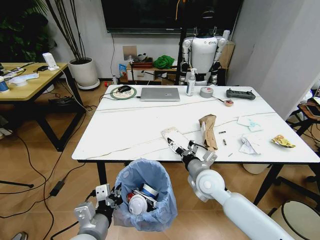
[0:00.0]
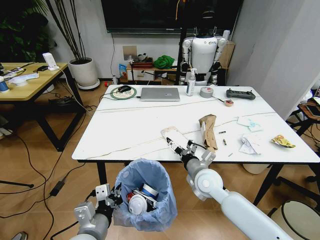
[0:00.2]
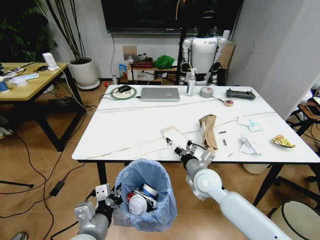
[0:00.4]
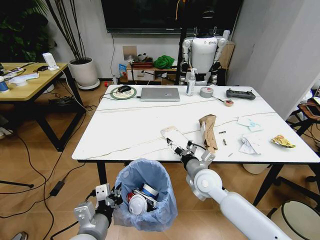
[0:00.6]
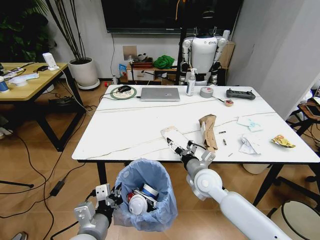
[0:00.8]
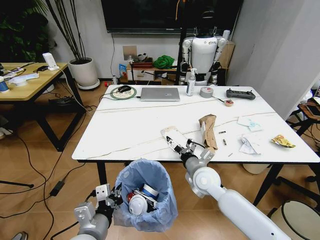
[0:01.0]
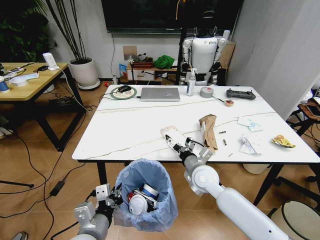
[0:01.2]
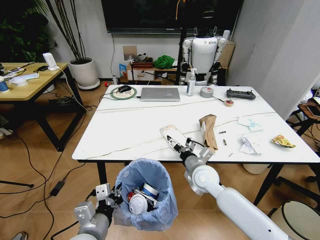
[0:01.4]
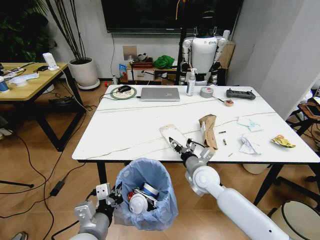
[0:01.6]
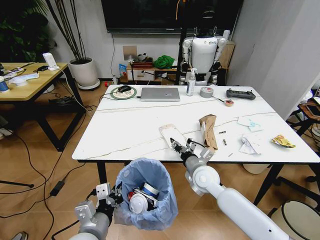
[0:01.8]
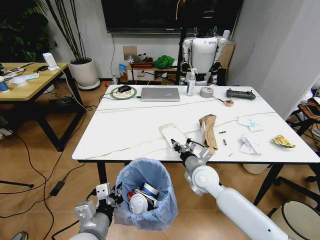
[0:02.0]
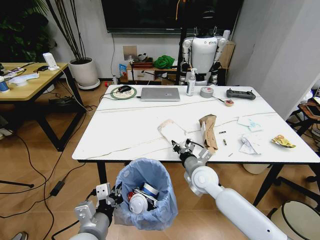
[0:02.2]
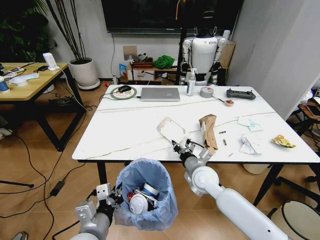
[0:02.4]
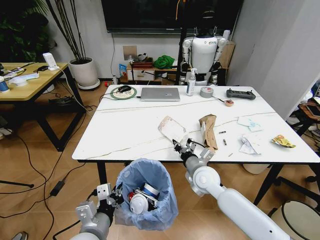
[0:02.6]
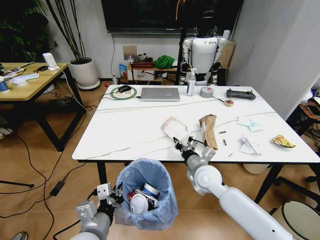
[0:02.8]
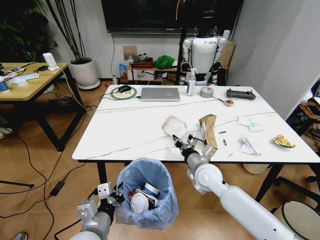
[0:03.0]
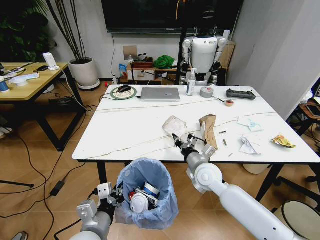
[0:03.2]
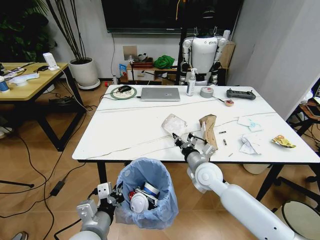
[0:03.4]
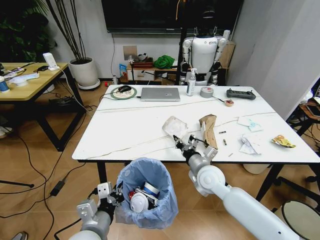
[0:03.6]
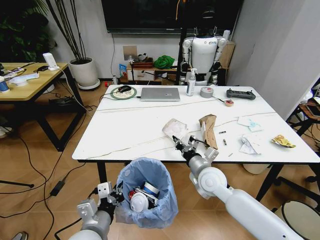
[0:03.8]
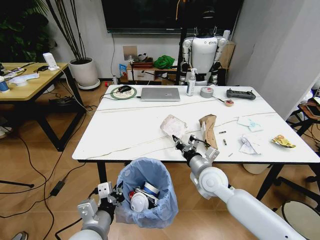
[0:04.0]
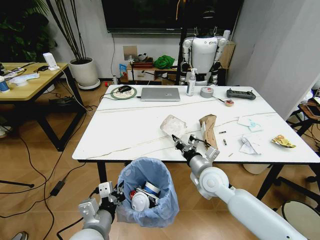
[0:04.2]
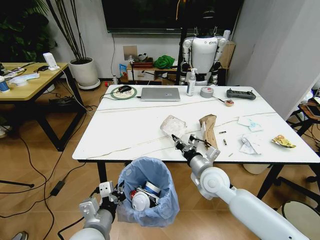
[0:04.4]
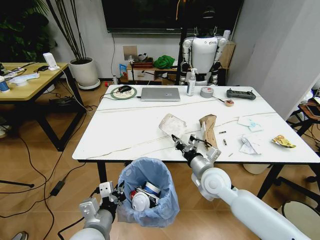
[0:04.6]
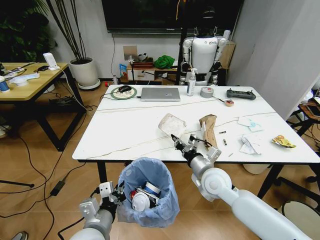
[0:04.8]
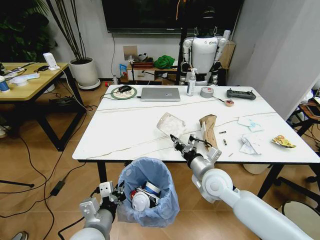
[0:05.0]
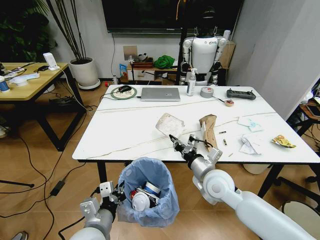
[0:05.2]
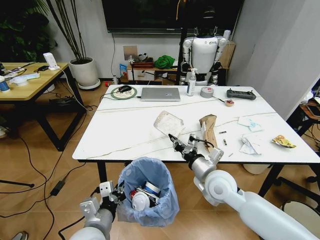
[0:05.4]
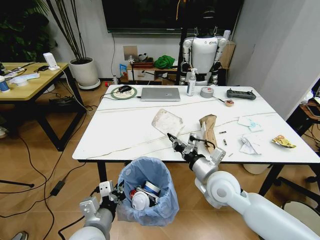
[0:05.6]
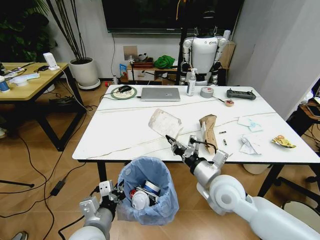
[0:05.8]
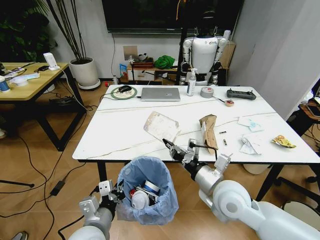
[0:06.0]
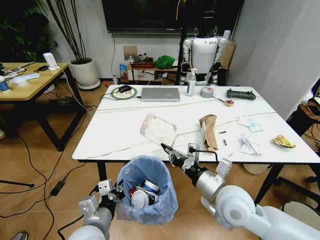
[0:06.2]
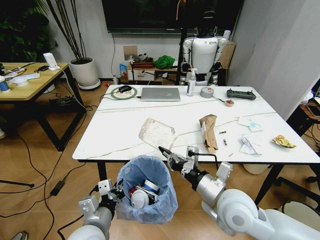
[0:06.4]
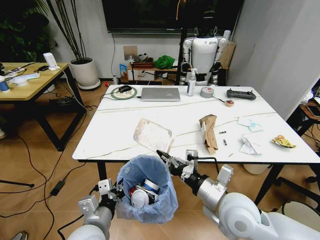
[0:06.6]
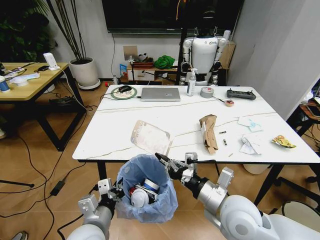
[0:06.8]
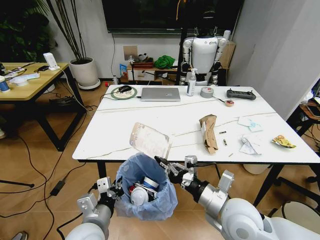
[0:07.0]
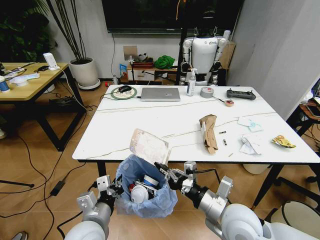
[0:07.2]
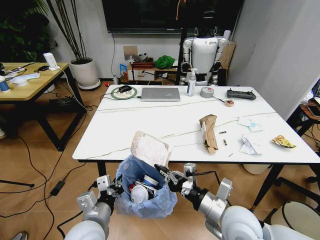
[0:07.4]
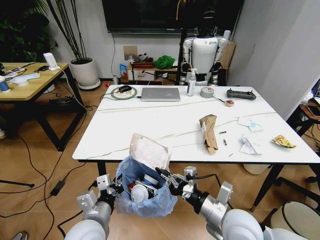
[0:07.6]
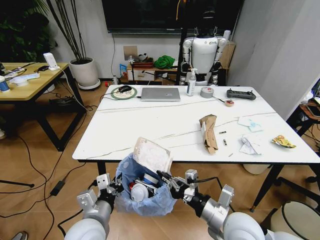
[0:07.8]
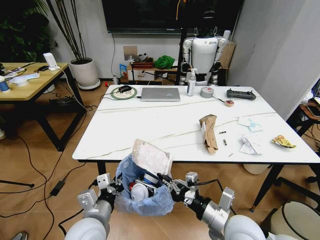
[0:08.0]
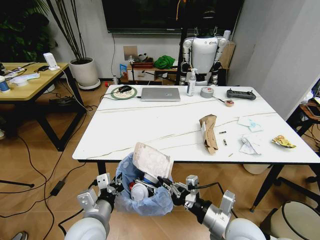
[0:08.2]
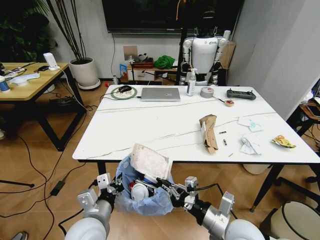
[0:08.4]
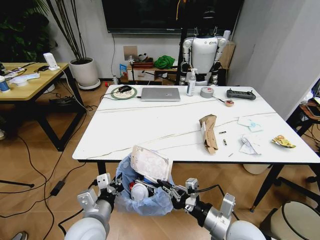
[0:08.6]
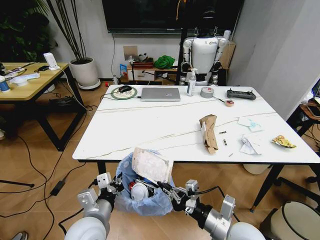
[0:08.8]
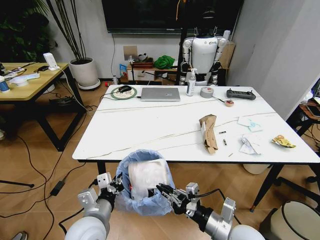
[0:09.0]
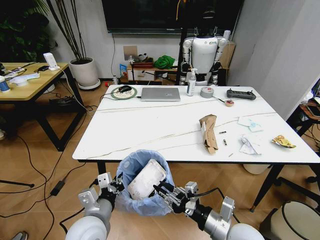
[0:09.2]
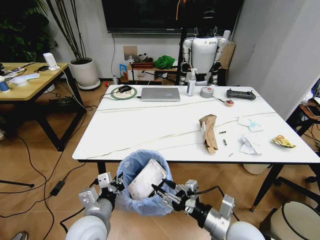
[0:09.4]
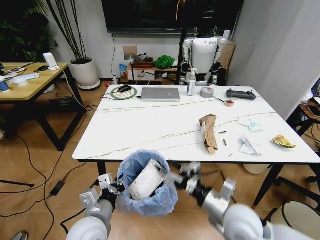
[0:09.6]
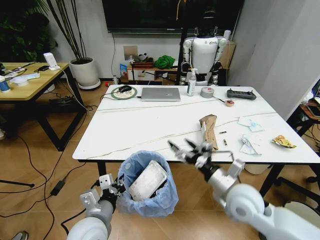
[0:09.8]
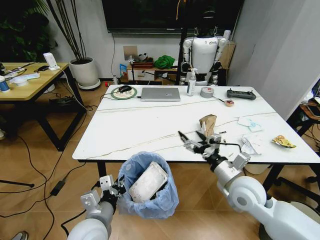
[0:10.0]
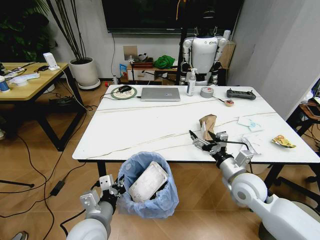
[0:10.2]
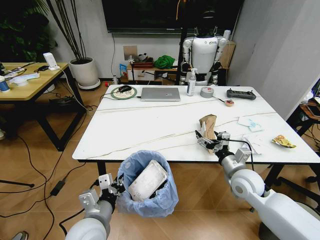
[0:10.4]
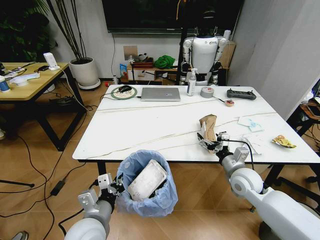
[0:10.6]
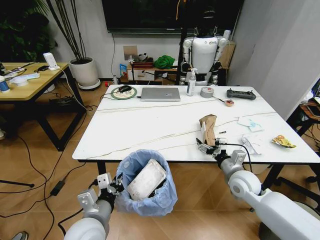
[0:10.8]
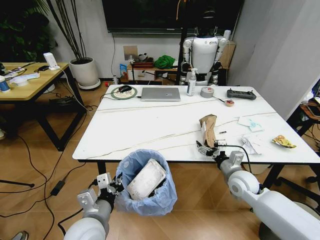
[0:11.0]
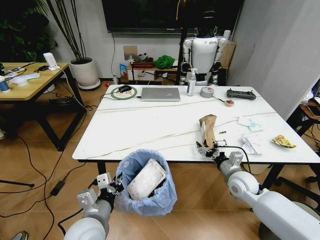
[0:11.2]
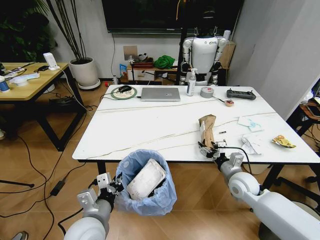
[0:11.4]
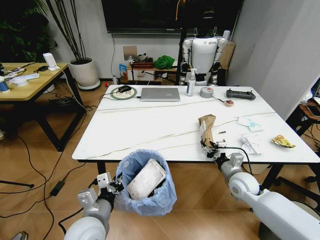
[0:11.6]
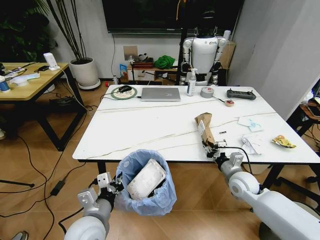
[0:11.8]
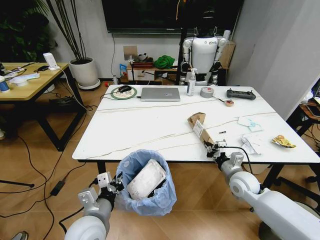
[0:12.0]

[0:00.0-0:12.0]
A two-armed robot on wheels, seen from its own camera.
Task of the whole recording: Pick up the trash bin and place the trash from the table into it.
0:00.0 to 0:01.6: The right gripper closes up.
0:01.6 to 0:03.0: The right gripper closes.
0:03.0 to 0:04.4: There are only small adjustments of the grippers.
0:04.4 to 0:06.0: The right gripper shifts about 10 cm backward and upward.
0:06.0 to 0:07.6: The right gripper is displaced backward by about 5 cm.
0:07.6 to 0:09.0: The grippers stay close to where they were, moving slightly.
0:09.0 to 0:10.4: The right gripper goes some 20 cm forward and to the right, and opens its fingers.
0:10.4 to 0:12.0: The right gripper is displaced downward by some 5 cm, and closes.

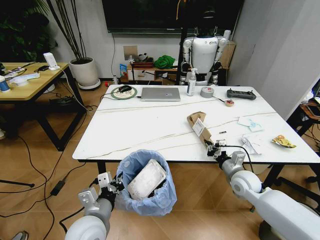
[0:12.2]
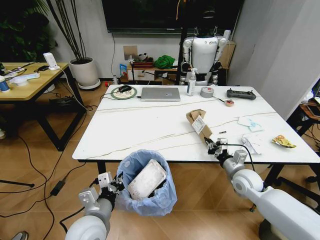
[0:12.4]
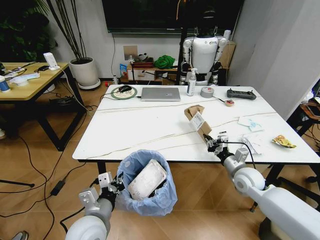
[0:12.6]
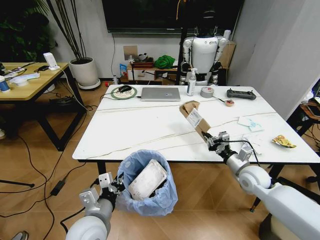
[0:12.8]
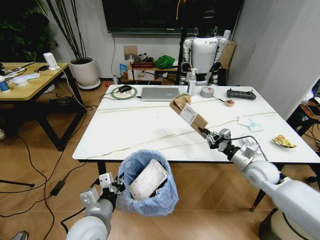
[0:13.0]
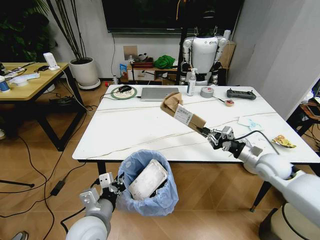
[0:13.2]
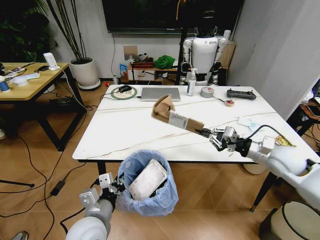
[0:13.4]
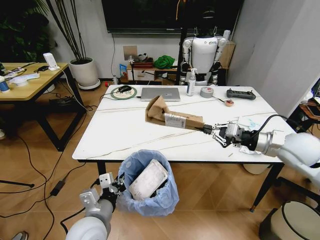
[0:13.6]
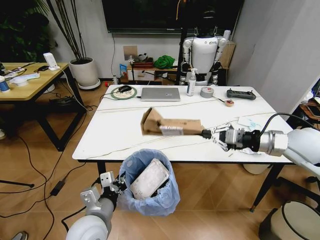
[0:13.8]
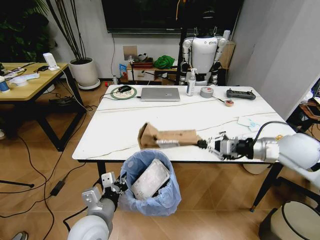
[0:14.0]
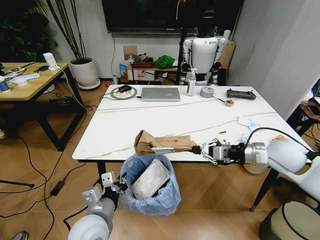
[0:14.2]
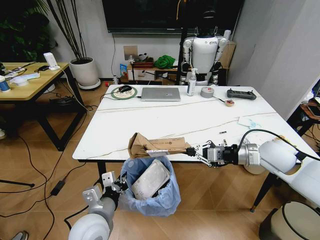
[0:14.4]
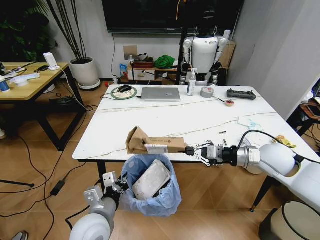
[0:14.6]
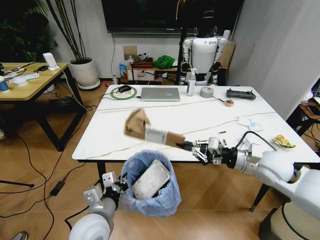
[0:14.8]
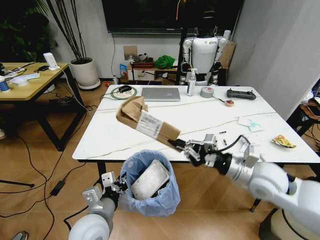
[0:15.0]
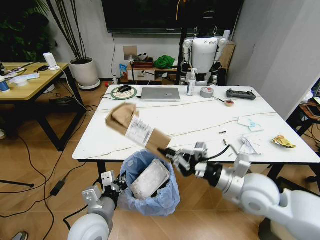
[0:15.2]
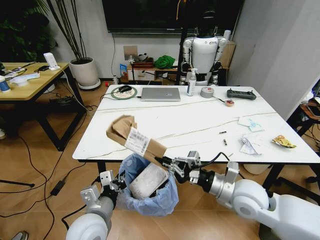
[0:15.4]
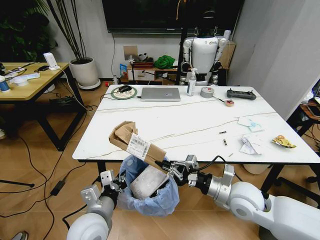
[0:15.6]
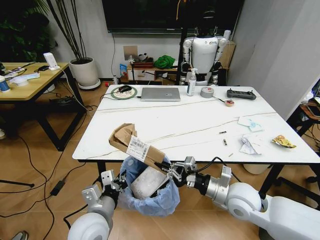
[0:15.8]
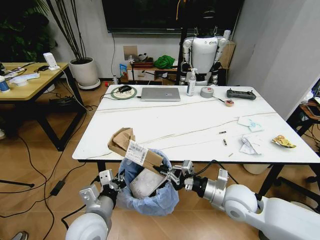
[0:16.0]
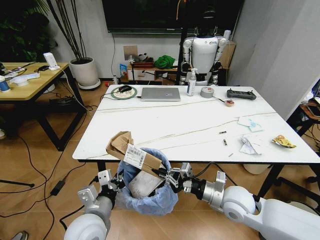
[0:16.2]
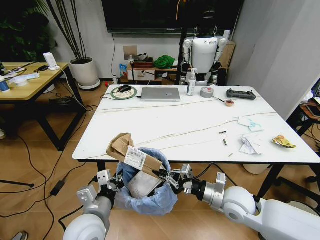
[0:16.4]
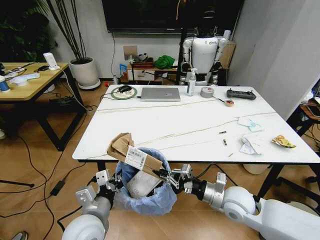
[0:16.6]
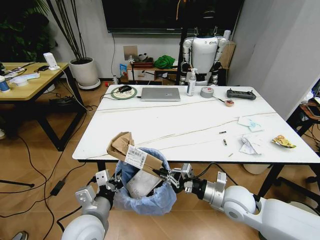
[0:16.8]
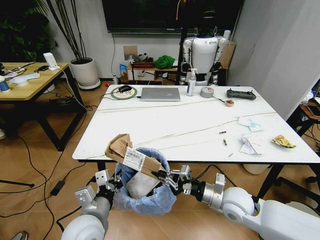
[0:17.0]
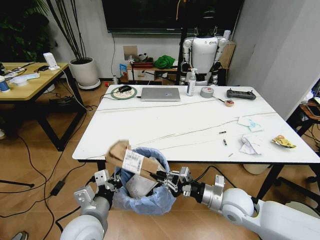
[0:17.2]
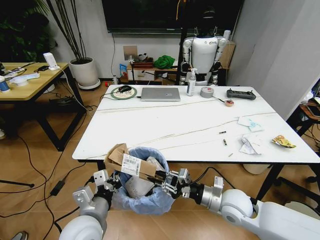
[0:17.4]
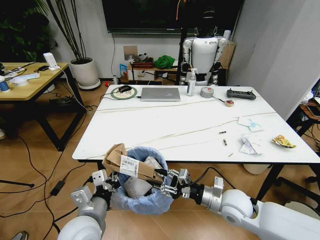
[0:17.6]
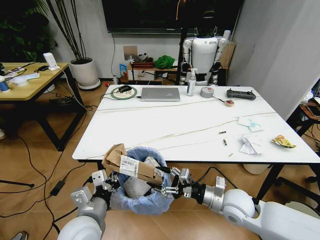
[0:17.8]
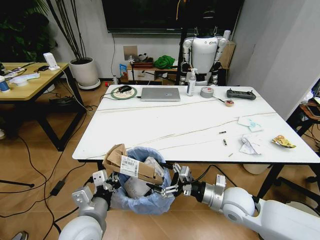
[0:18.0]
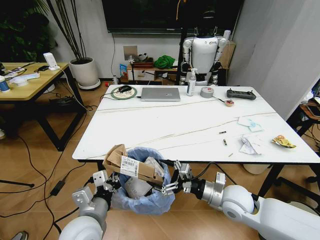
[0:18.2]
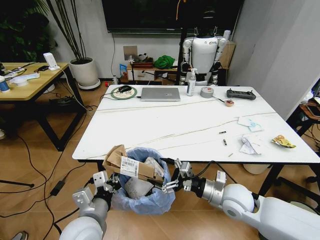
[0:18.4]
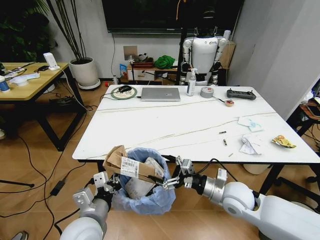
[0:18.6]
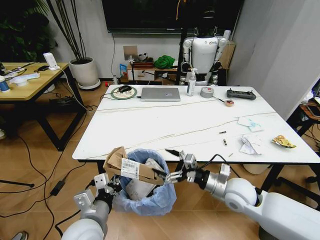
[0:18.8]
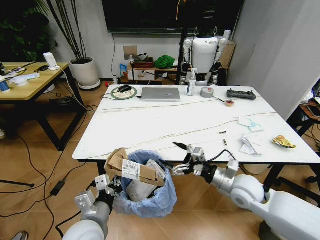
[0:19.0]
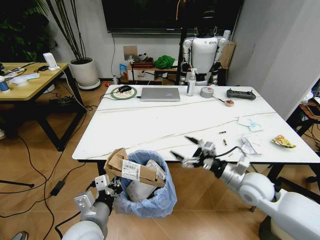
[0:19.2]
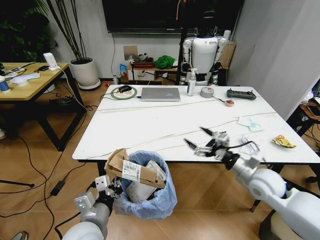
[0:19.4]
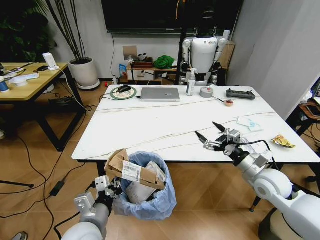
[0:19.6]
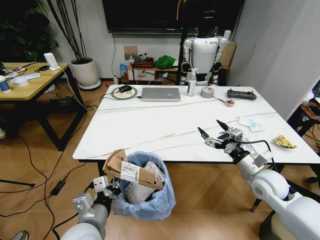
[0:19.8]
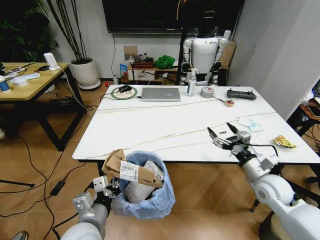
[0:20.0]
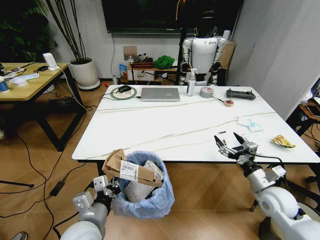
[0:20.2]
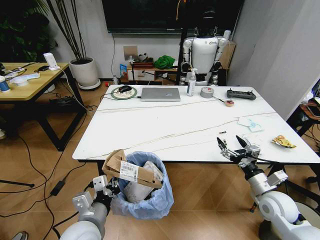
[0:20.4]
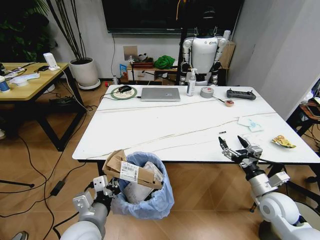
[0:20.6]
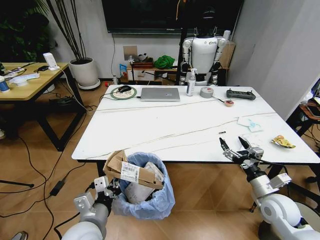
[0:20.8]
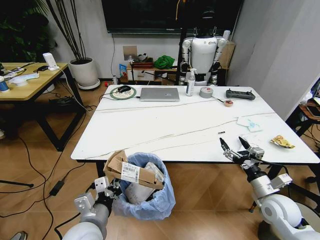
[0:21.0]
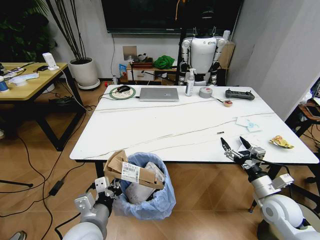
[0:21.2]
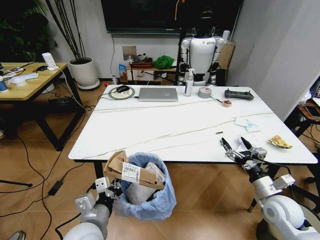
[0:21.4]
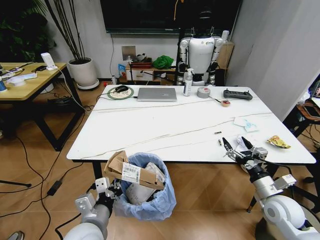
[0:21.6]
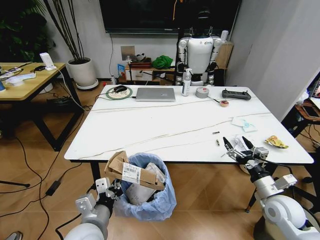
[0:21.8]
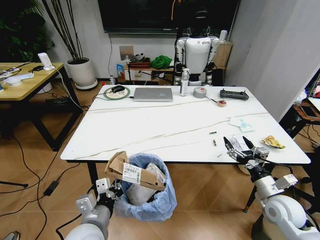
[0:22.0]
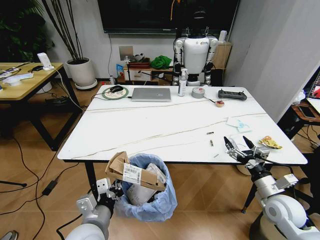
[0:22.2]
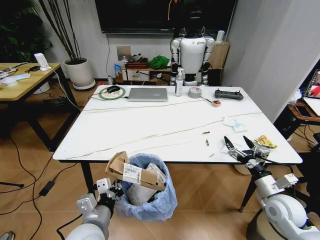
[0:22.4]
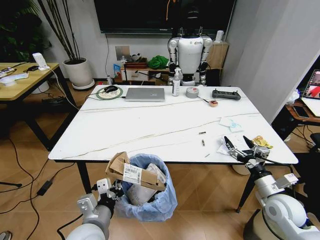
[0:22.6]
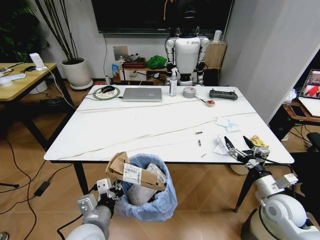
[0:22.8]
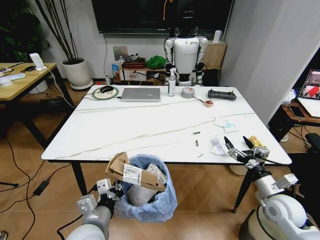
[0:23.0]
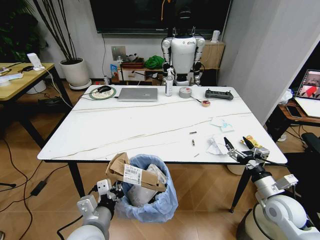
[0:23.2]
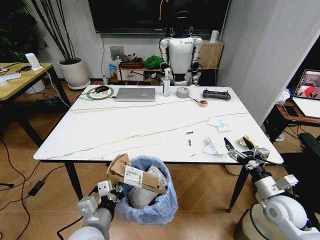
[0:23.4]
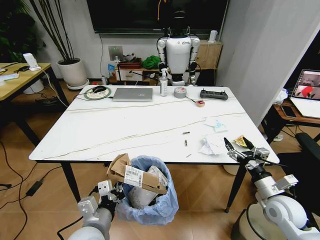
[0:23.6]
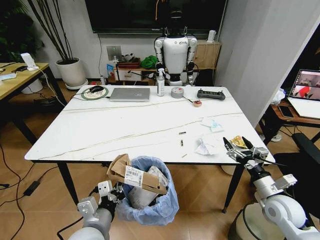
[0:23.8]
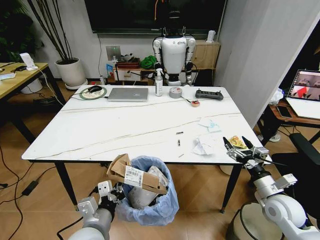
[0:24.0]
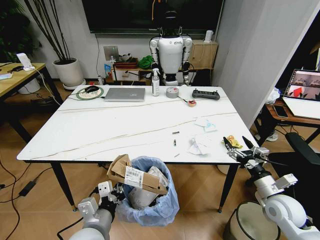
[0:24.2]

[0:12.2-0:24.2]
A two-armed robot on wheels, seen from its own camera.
Task of the whole recording: Pick up the trash bin and place the trash from the table into it.
0:12.2 to 0:13.8: The right gripper heads upward, covering some 20 cm.
0:13.8 to 0:15.2: The right gripper travels to the left, backward and downward by approximately 20 cm.
0:15.2 to 0:16.6: The right gripper is displaced downward by roughly 10 cm.
0:16.6 to 0:18.2: The right gripper opens up.
0:18.2 to 0:19.8: The right gripper shifts roughly 10 cm to the right.
0:19.8 to 0:21.2: The right gripper goes approximately 5 cm backward.
